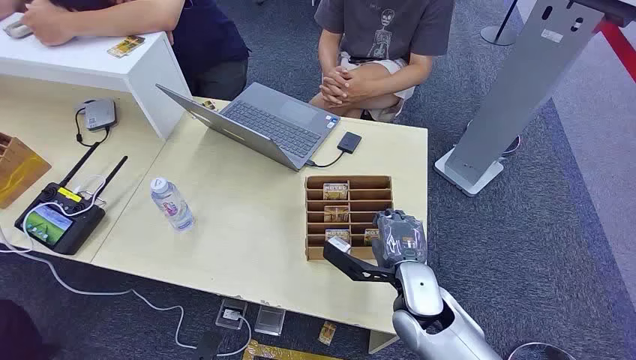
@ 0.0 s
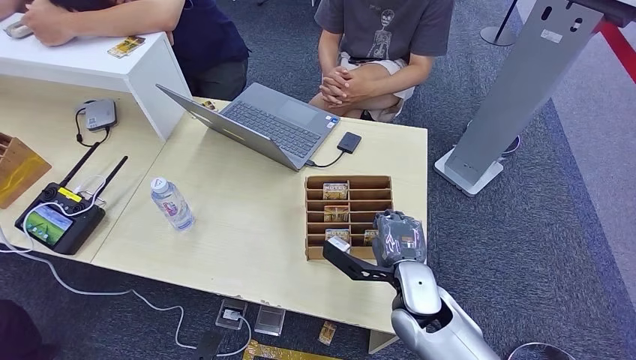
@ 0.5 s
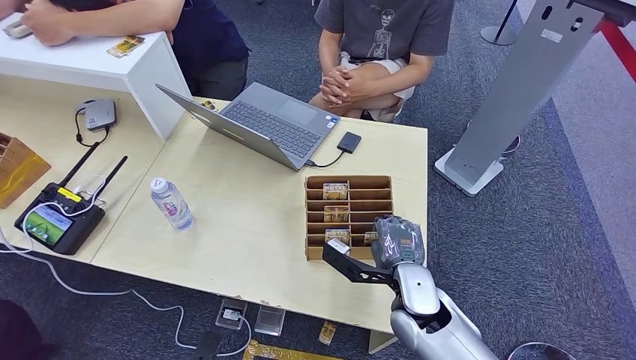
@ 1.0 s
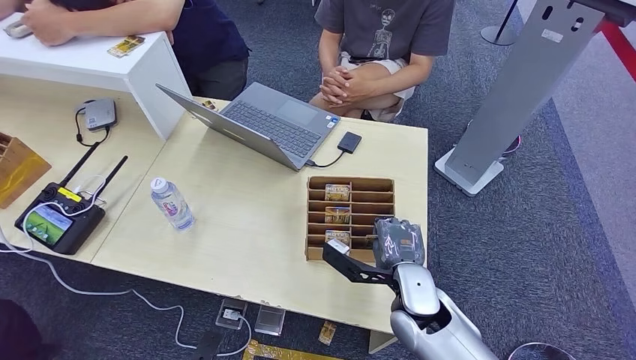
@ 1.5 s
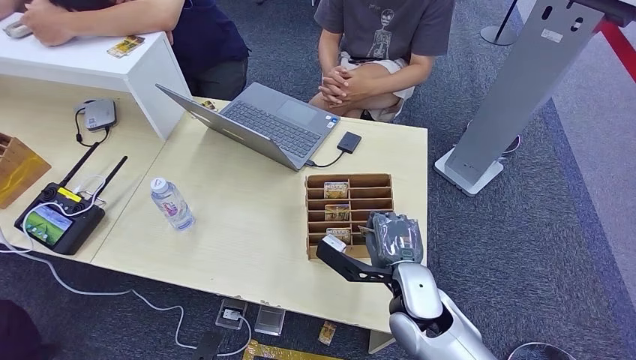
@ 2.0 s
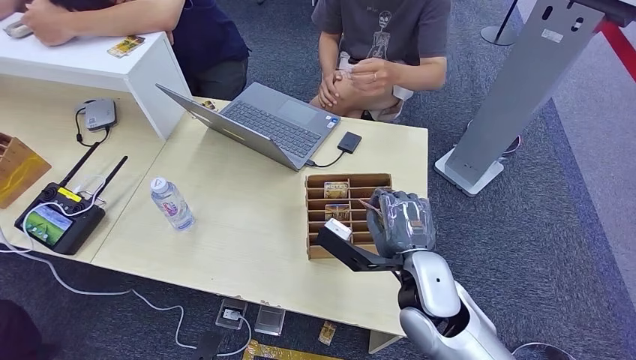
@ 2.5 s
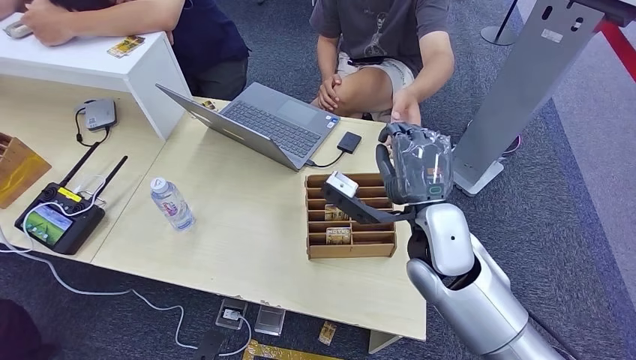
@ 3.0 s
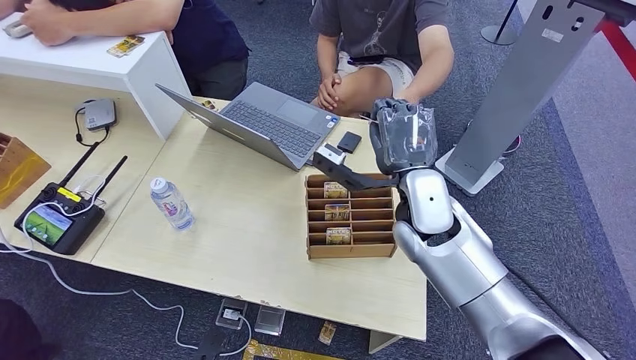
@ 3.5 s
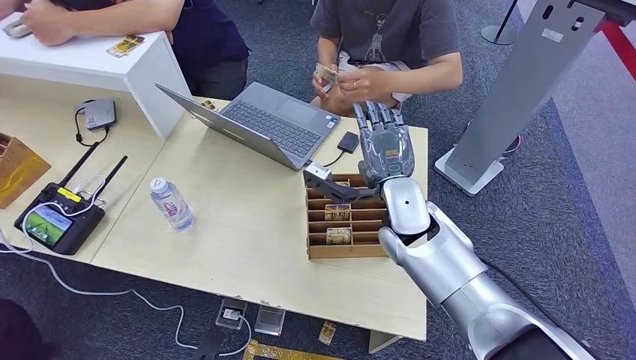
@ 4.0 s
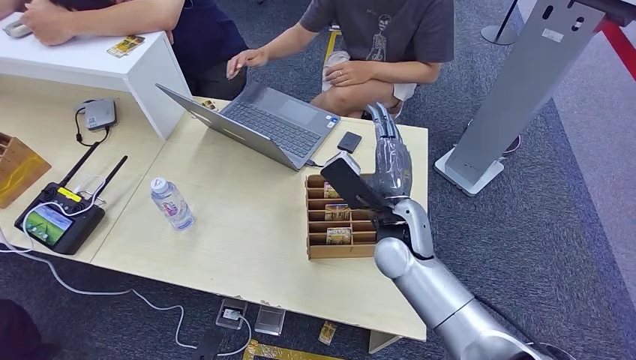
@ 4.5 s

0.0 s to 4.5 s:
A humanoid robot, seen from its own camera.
Step, 0.0 to 2.0 s: Pick up the key card from the card box.
Step, 3.0 to 4.5 s: Hand the key card to the target.
2.0 to 4.5 s: The right hand shifts approximately 10 cm forward and upward.
